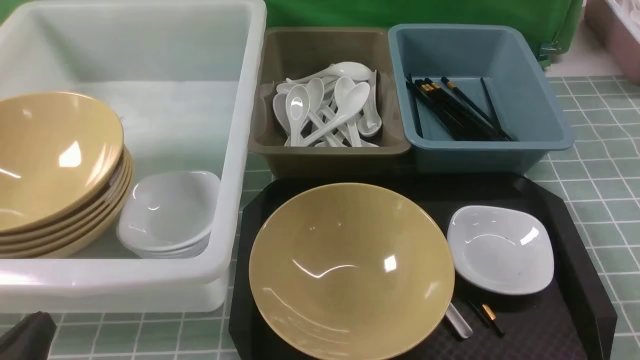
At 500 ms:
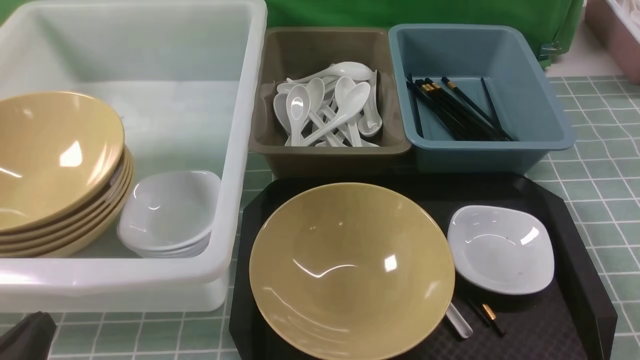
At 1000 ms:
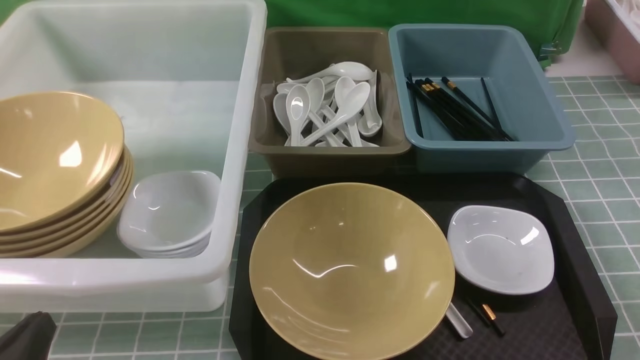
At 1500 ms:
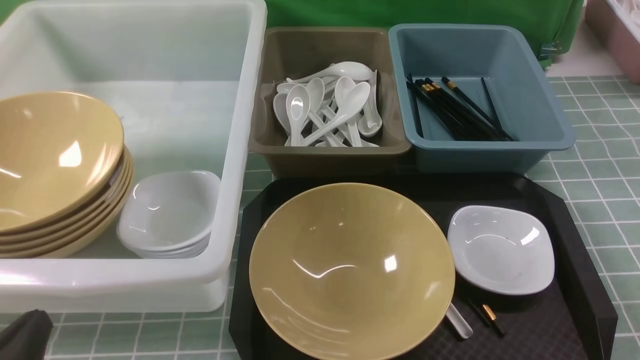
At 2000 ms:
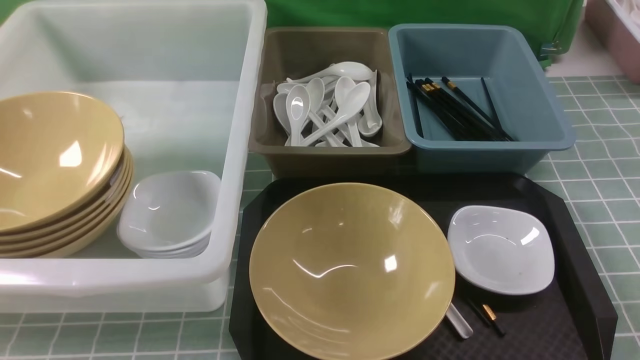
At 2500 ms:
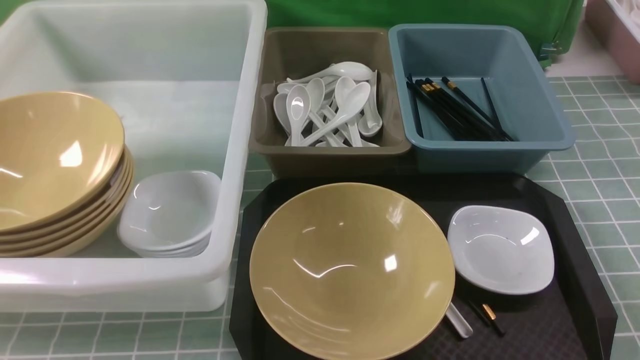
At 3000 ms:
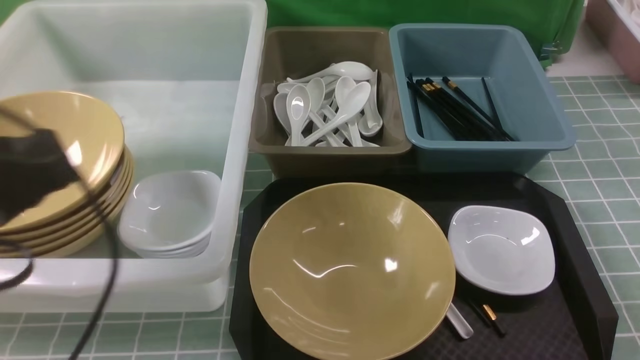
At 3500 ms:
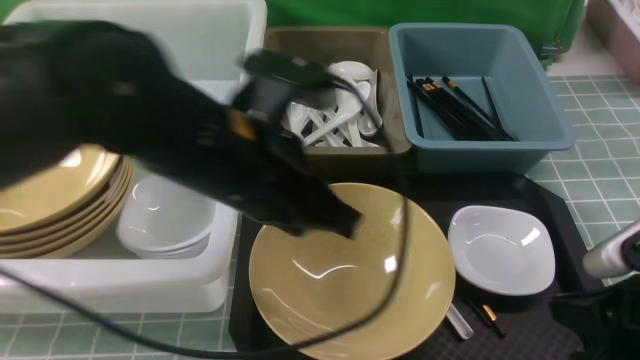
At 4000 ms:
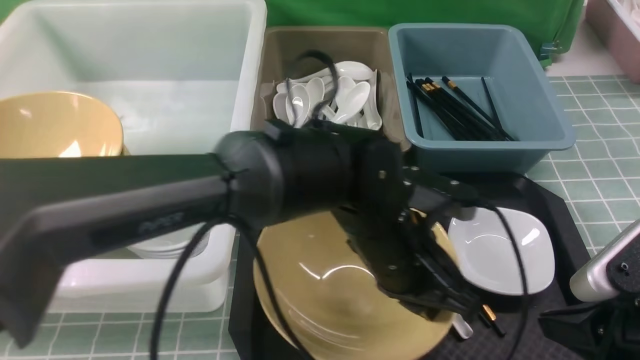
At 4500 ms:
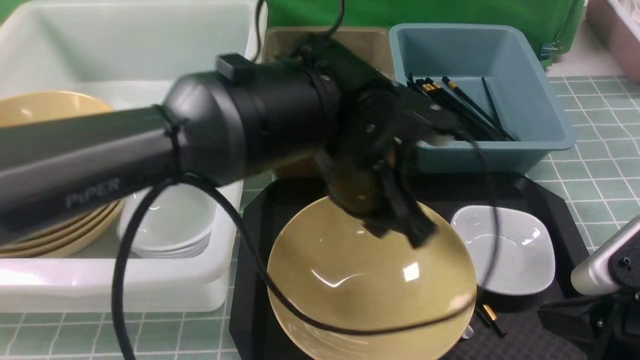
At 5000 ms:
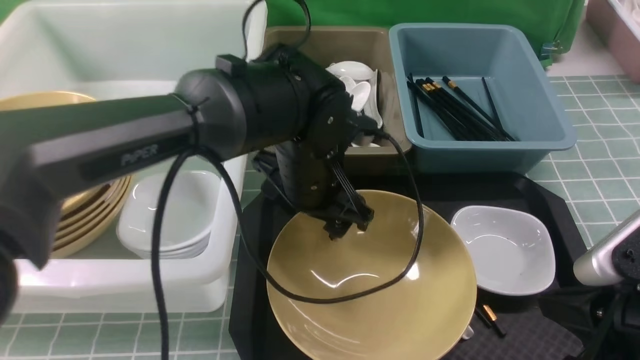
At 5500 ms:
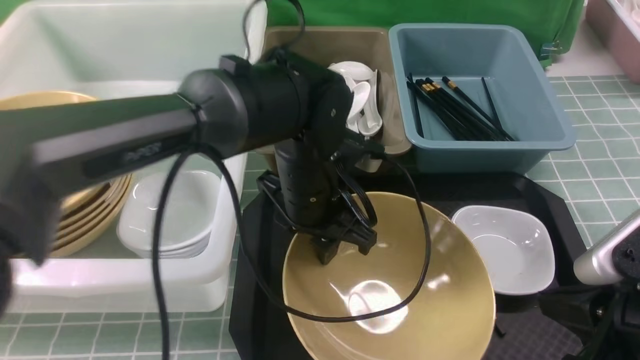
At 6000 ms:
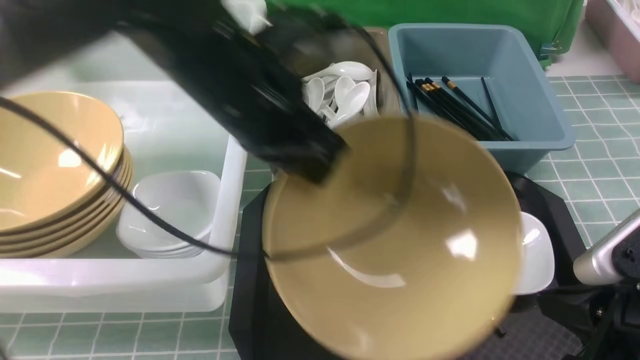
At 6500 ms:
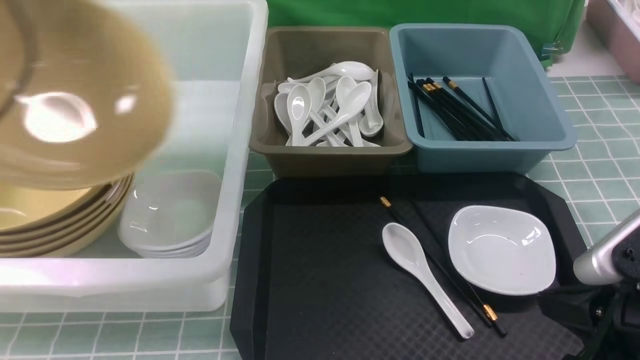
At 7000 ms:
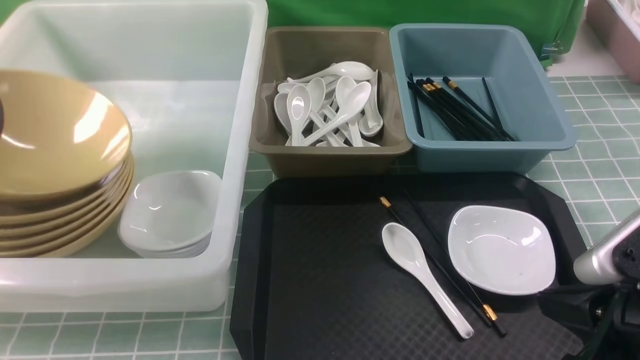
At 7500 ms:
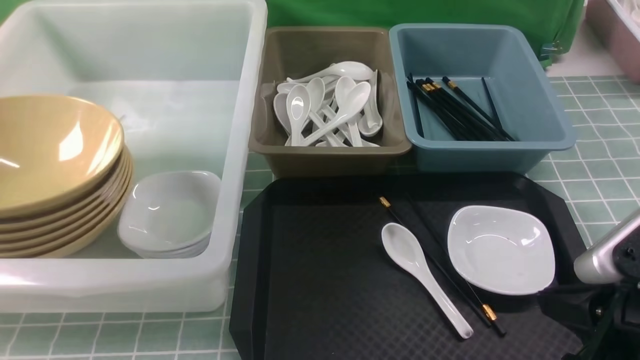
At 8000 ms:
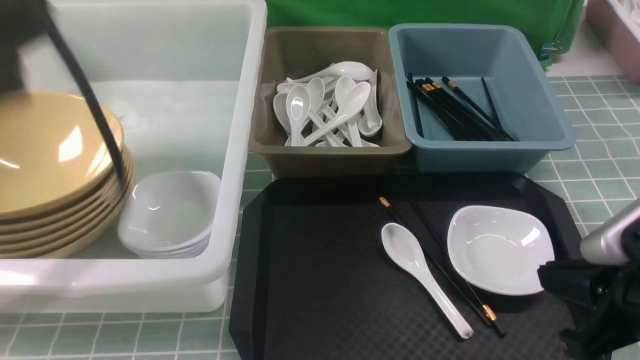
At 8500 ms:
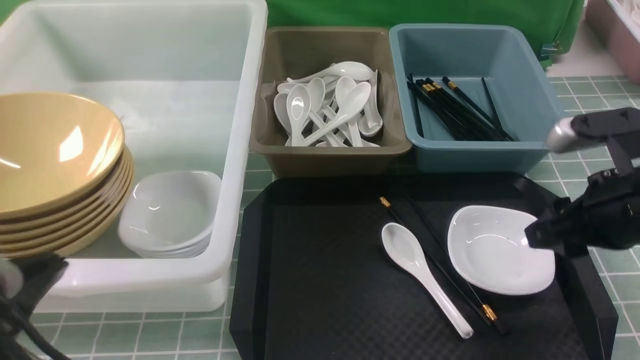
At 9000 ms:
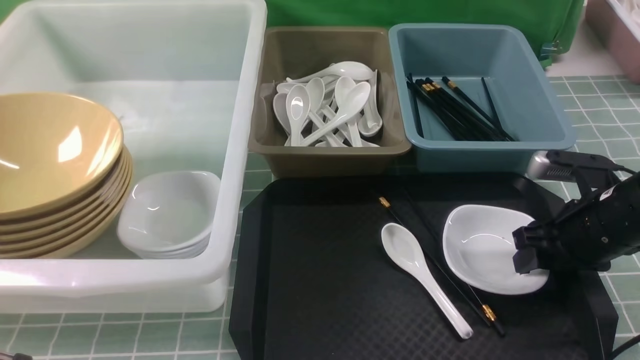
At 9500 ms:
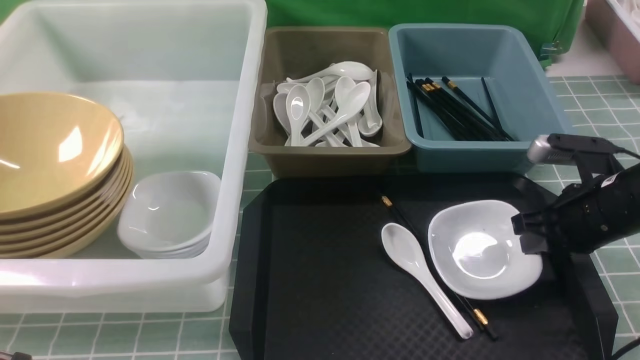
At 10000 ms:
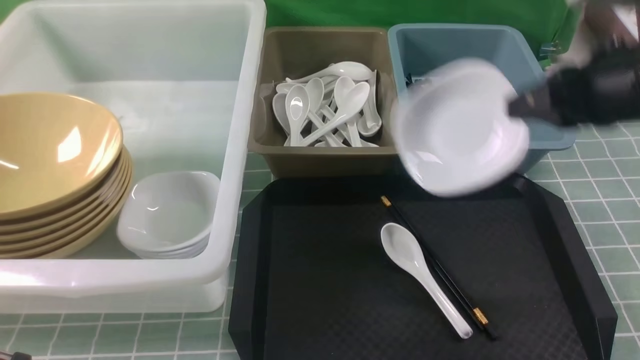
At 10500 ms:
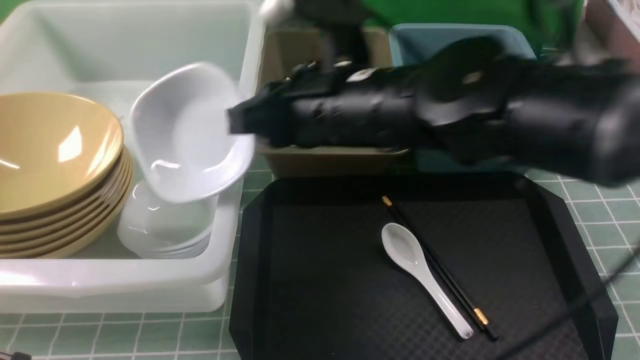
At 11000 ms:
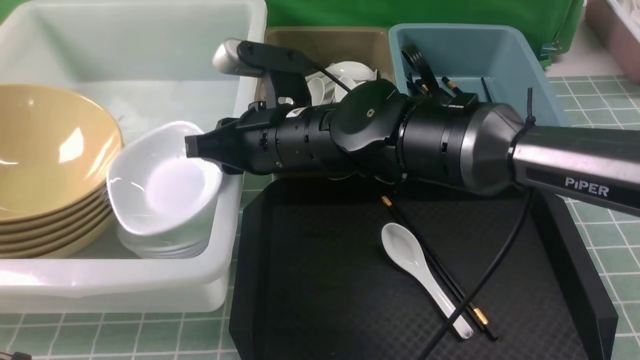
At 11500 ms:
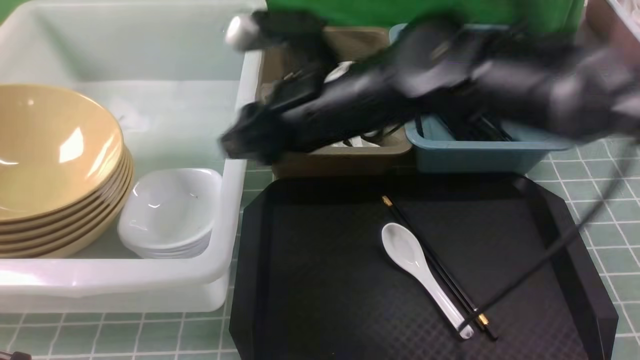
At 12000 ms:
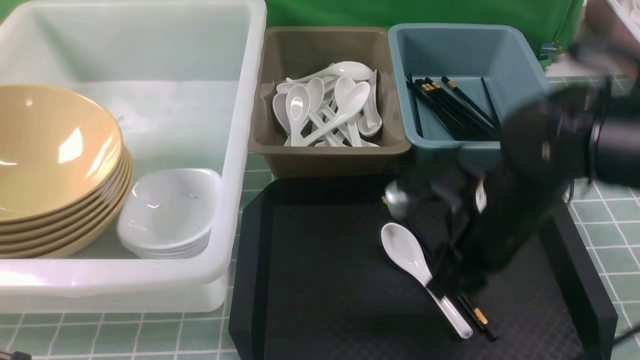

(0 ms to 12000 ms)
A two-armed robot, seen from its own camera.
Task of the whole recording: on blue table put chopsticks spoon bowls plates into blue grey white boxes.
Step, 0 ms - 5500 ms: use the left arm to grab the yellow noodle bowl on the left.
Step, 6000 ms - 7500 ms: use the left arm to put the noodle bowl into the large storage box on the left.
Step, 8000 ms - 9500 ms: use the right arm to grab the plate.
Step, 10000 ms - 11000 ms: use the right arm to put the plate into the large storage box on the left.
0 ms - 2000 ms: The left gripper goes about 10 cm upward.
2000 ms - 4000 ms: The right gripper shifts roughly 10 cm forward and to the left, reaches approximately 5 cm upward, then returns, and closes up. Meanwhile the left gripper is displaced to the right and forward by about 35 cm.
4000 ms - 6000 ms: The left gripper shifts some 20 cm to the left and upward, and opens, then closes again.
6000 ms - 8000 ms: The left gripper is displaced backward, to the left and upward by approximately 20 cm, and opens and closes again.
8000 ms - 10000 ms: The right gripper is displaced forward and upward by about 15 cm, and opens and closes again, while the left gripper travels downward and backward by approximately 15 cm.
10000 ms - 12000 ms: The right gripper is displaced downward by roughly 10 cm, travels to the left and back again, some 25 cm each way, and opens its fingers.

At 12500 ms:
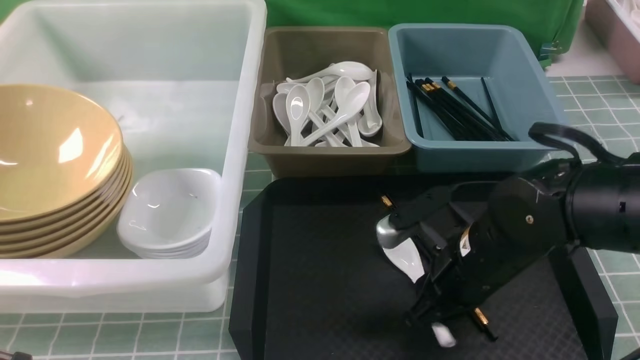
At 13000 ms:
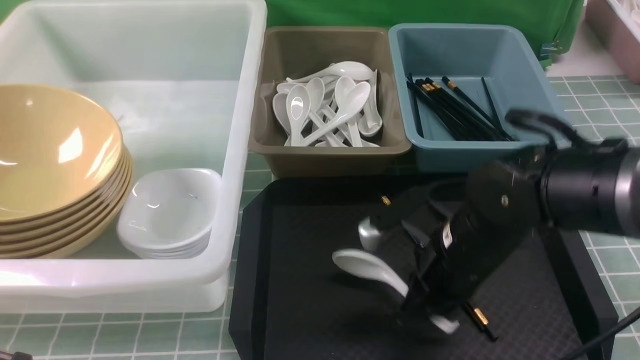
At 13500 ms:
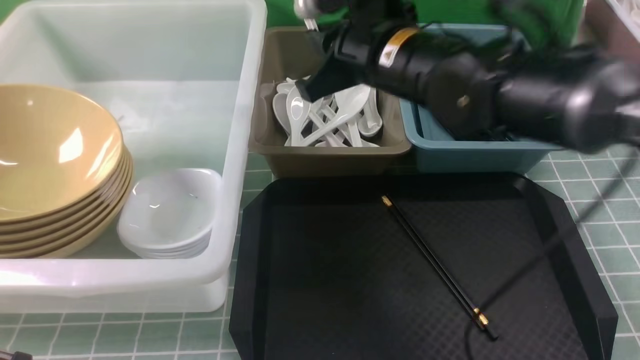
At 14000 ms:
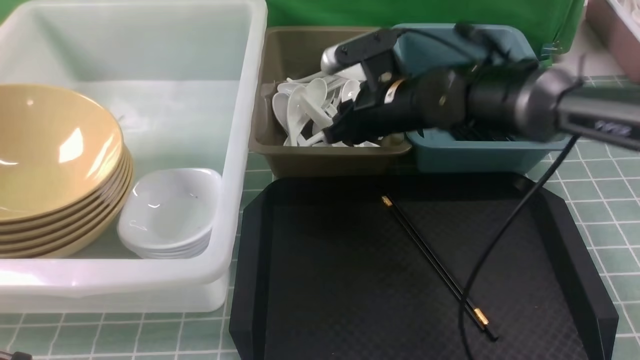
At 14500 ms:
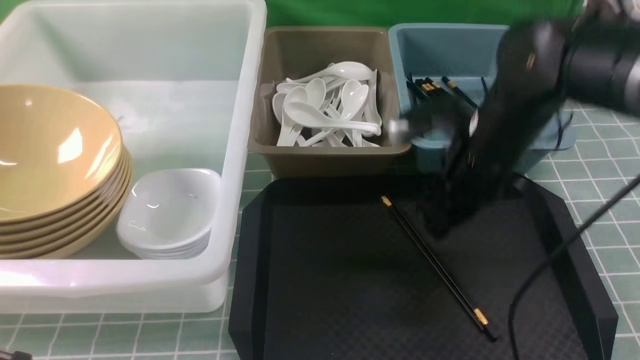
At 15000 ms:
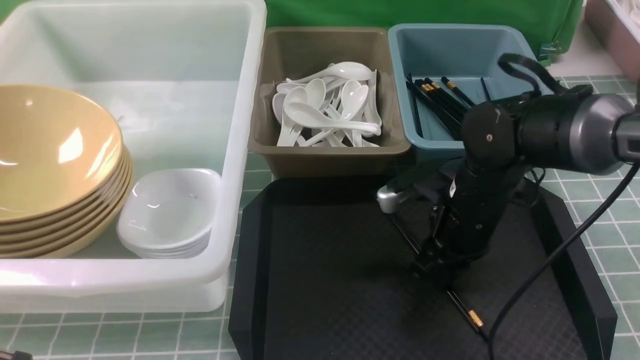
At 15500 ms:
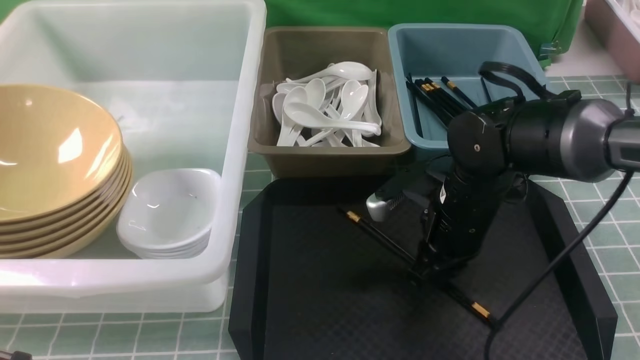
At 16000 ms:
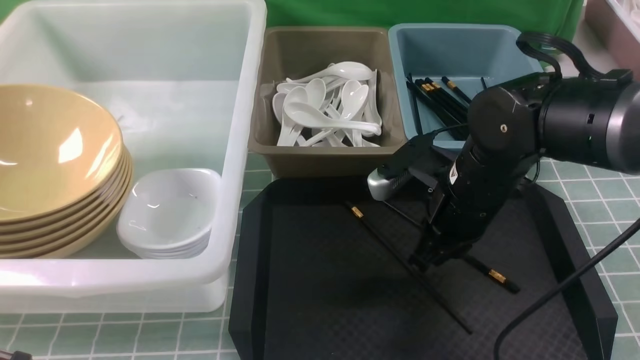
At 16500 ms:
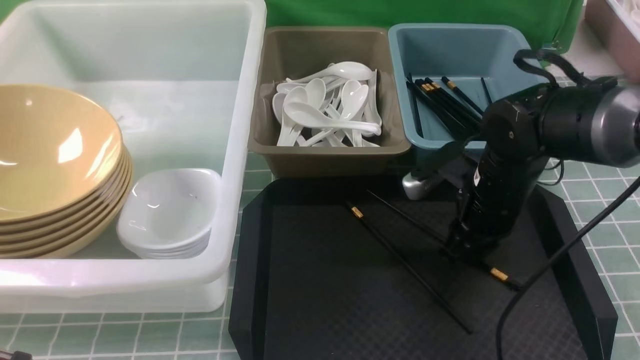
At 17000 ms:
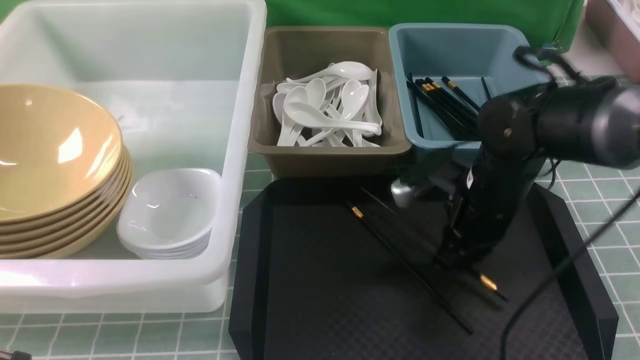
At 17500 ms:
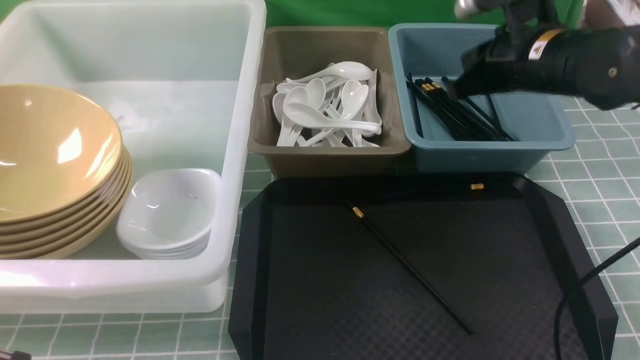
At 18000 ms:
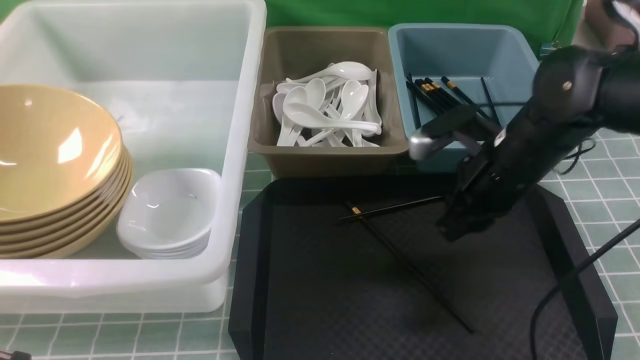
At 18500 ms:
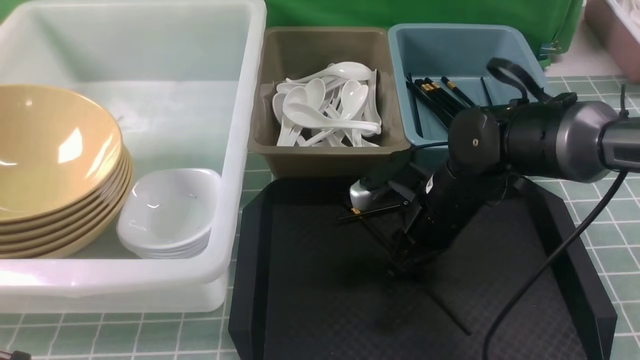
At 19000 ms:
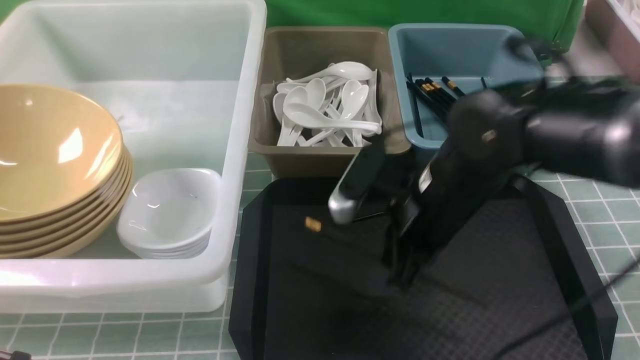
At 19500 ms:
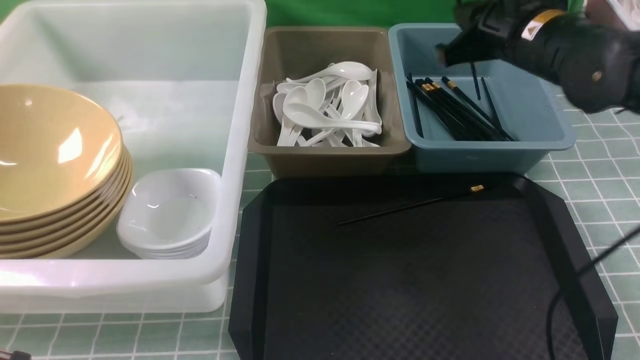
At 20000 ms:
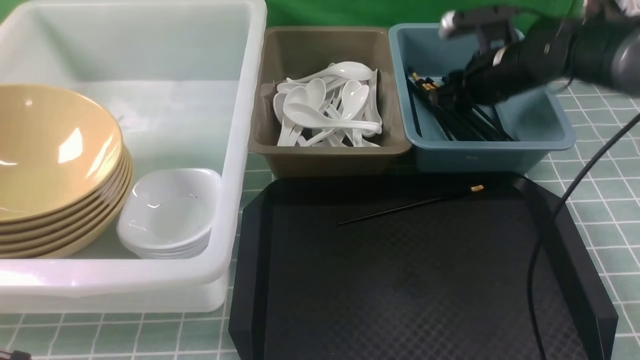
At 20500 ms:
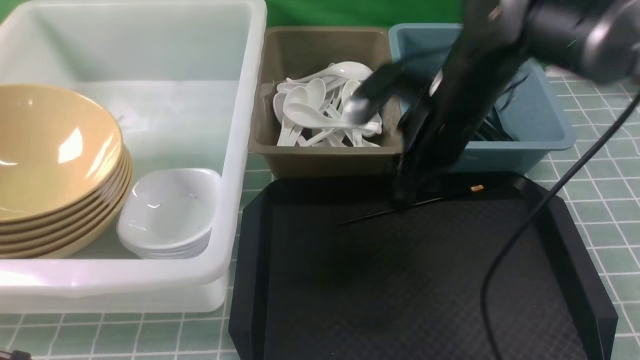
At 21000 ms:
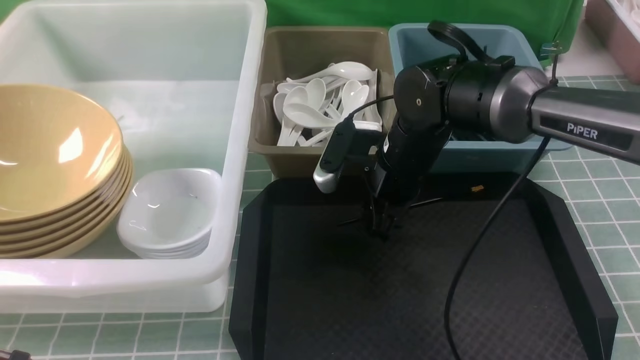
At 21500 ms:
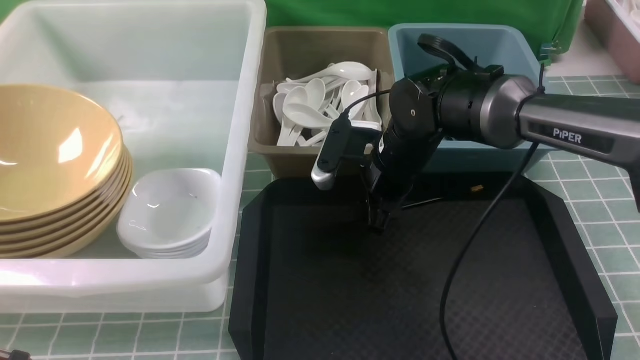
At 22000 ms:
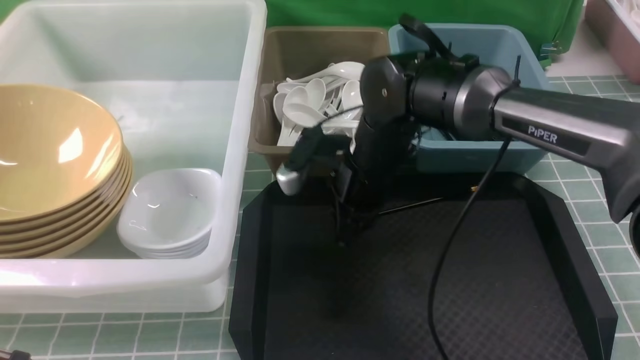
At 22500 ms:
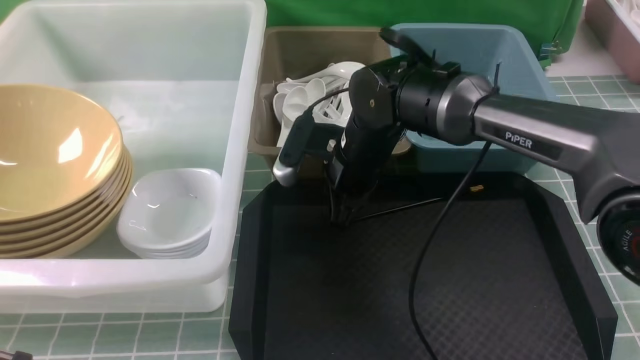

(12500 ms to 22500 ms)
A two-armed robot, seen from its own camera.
Task of the whole recording: on blue table put chopsticks spoon bowls plates into blue grey white boxes.
Step, 13500 ms - 14000 ms: use the right arm to put the soup spoon into the small storage box in the middle.
Step, 14500 ms - 18500 ms: use the right arm to grab a chopstick.
Step, 19000 ms - 20000 ms: use the right arm to put a chopstick into the small storage box on the right.
12500 ms - 14500 ms: The right gripper goes about 10 cm forward and upward, and closes, then reopens.
14500 ms - 16500 ms: The right gripper moves downward, about 5 cm, and closes and opens again.
16500 ms - 18500 ms: The right gripper is displaced to the left by some 5 cm, travels upward and back again, some 10 cm each way, and closes and opens again.
18500 ms - 20500 ms: The right gripper shifts approximately 10 cm upward, travels forward and back again, approximately 15 cm each way, and opens.
20500 ms - 22500 ms: The right gripper moves to the left and downward, some 10 cm, and closes up.
